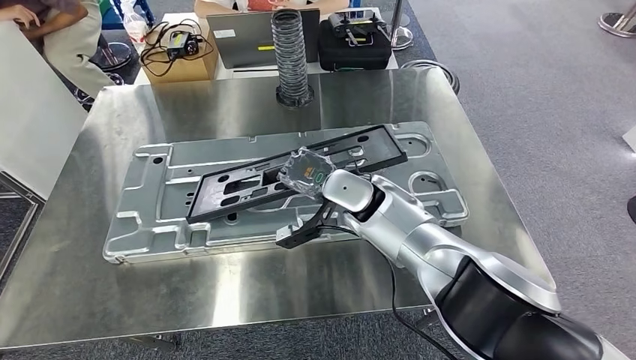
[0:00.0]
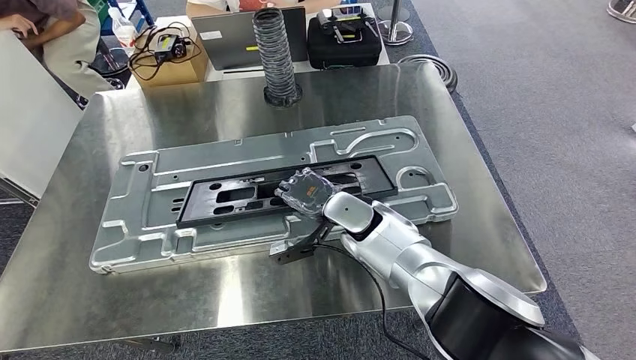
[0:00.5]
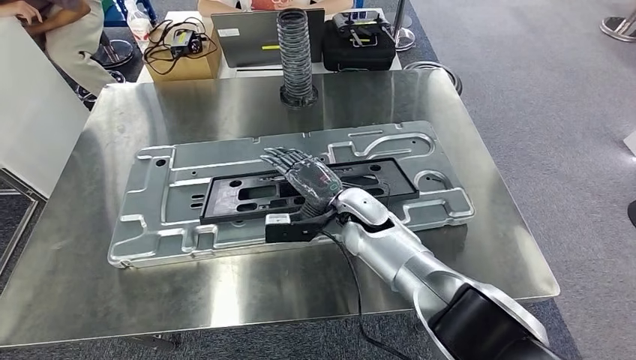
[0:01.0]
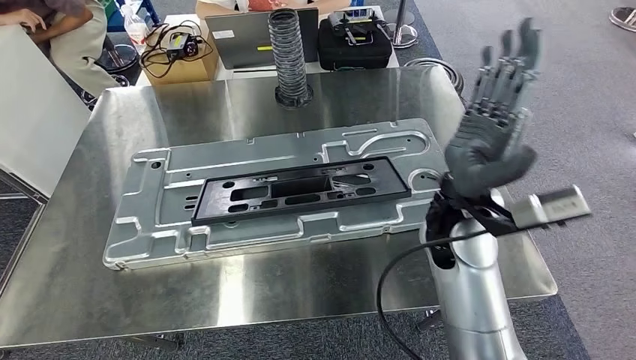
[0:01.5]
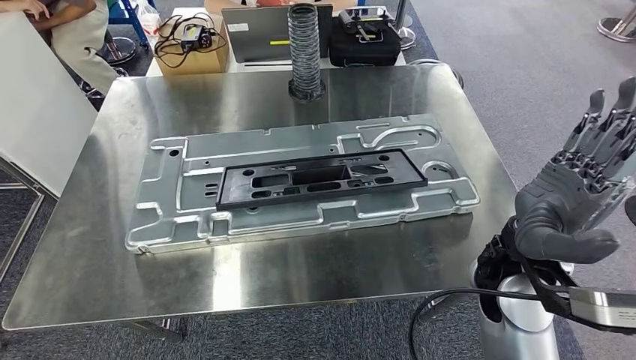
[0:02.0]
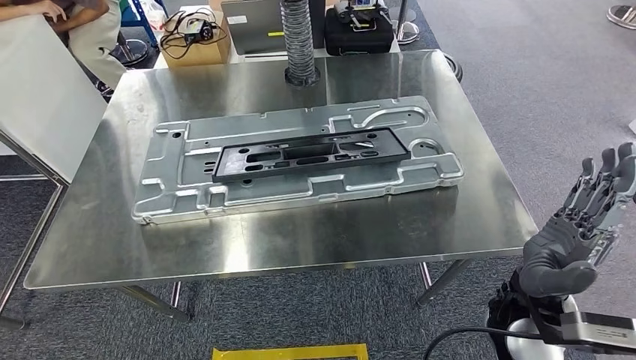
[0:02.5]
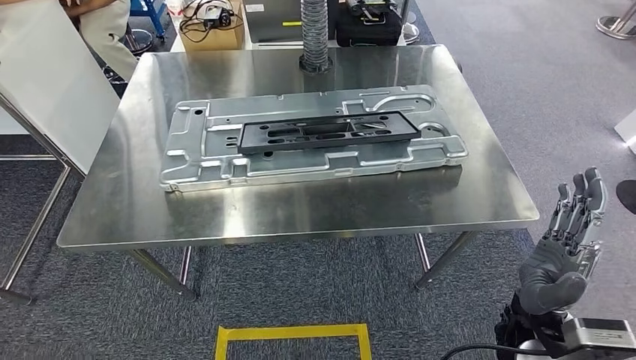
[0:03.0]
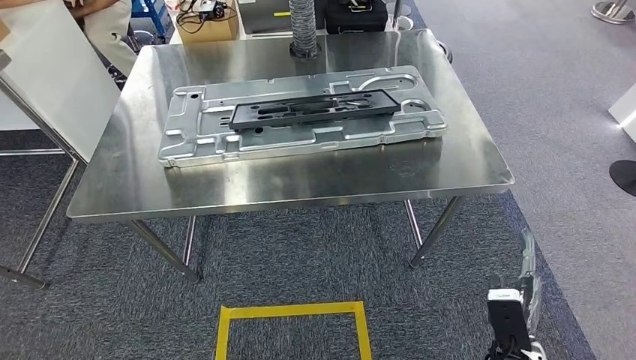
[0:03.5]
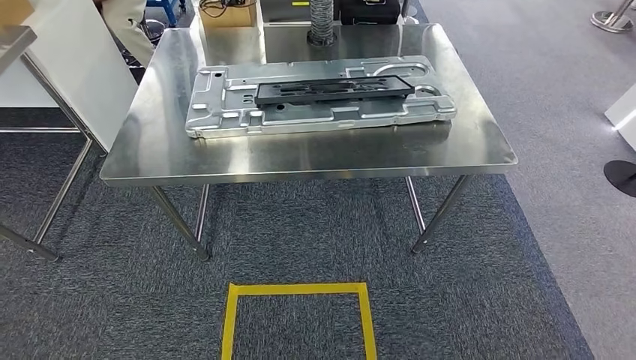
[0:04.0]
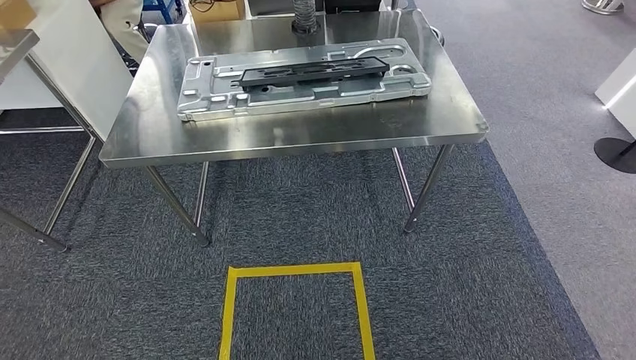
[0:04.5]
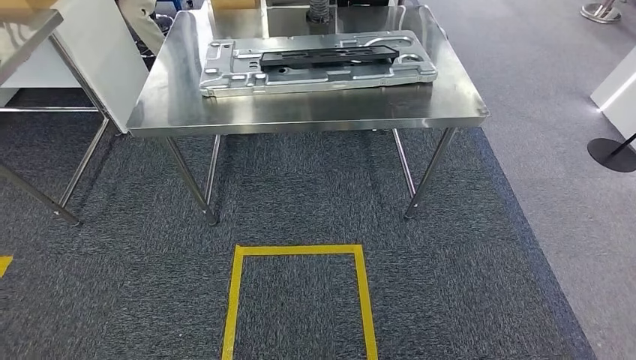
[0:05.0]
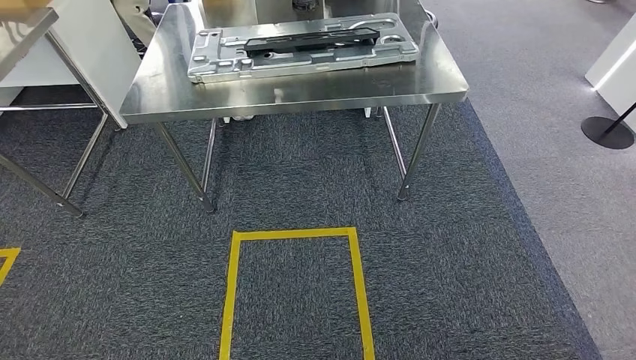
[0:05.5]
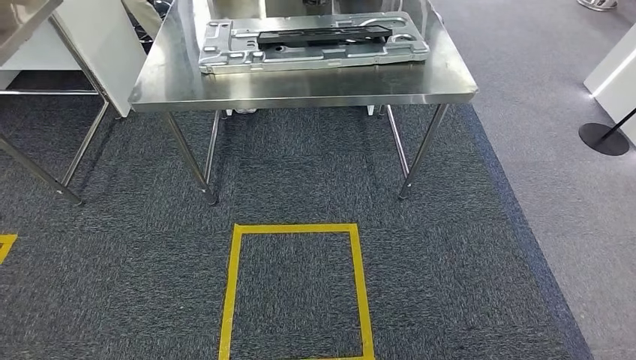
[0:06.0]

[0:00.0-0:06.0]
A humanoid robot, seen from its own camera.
Step, 0:00.0 to 0:02.5: Insert the small component into the corresponding slot on the workbench.
Step, 0:03.0 to 0:06.0: Move to the initial position at the workbench.
